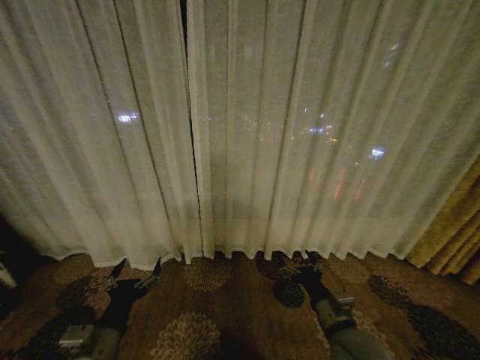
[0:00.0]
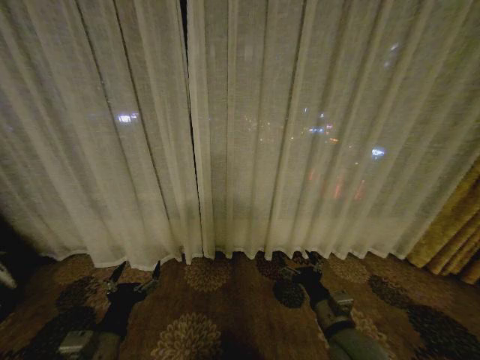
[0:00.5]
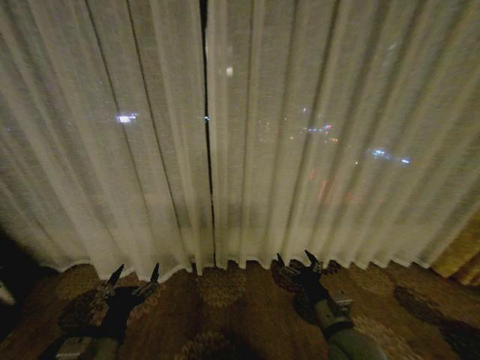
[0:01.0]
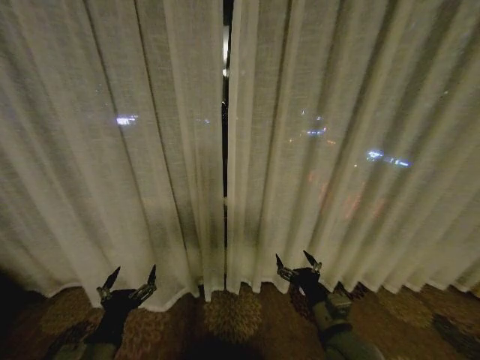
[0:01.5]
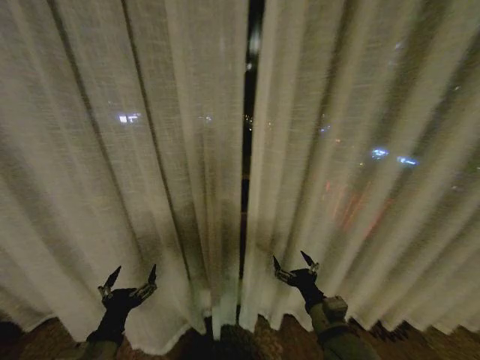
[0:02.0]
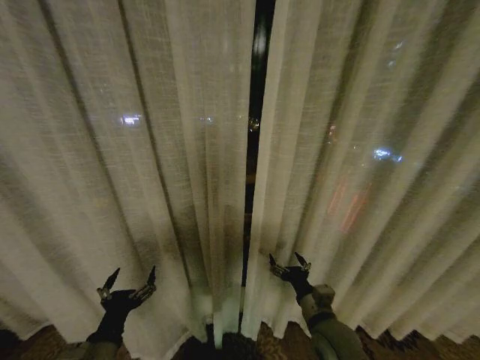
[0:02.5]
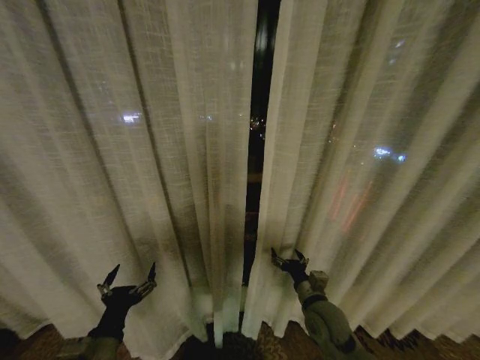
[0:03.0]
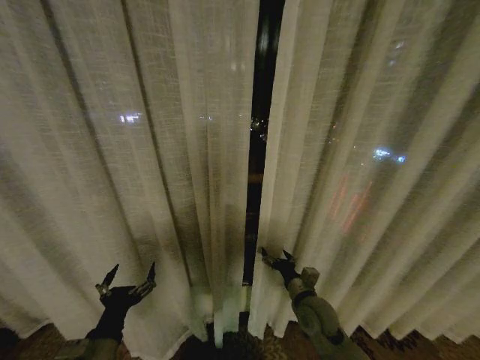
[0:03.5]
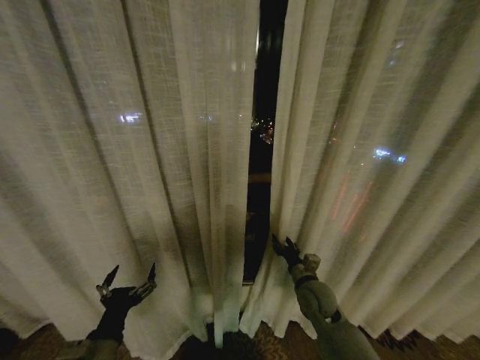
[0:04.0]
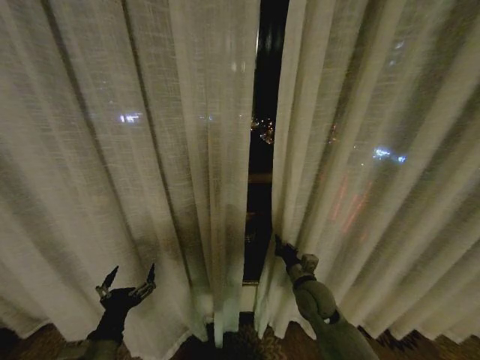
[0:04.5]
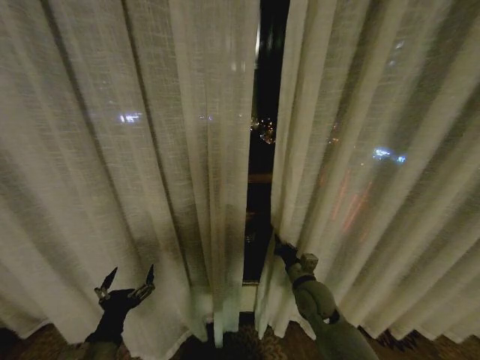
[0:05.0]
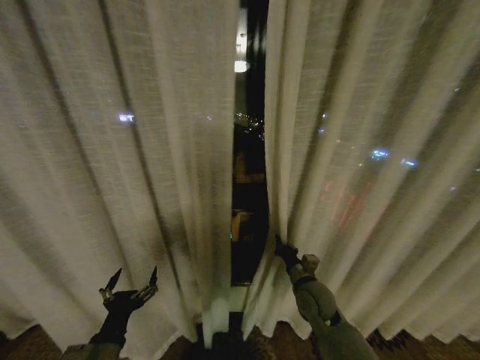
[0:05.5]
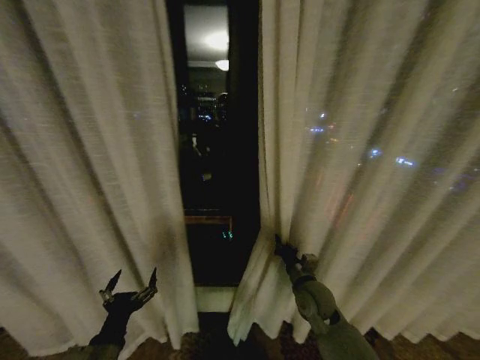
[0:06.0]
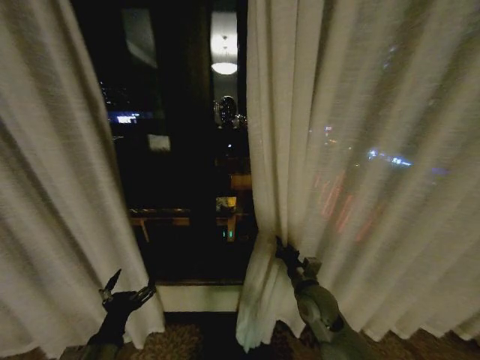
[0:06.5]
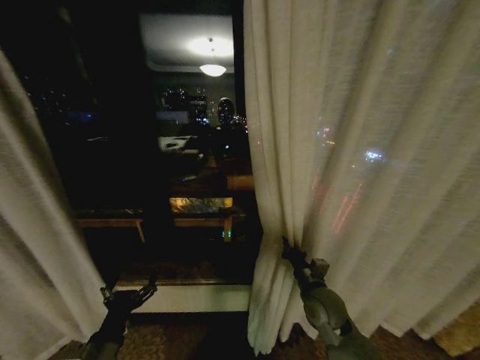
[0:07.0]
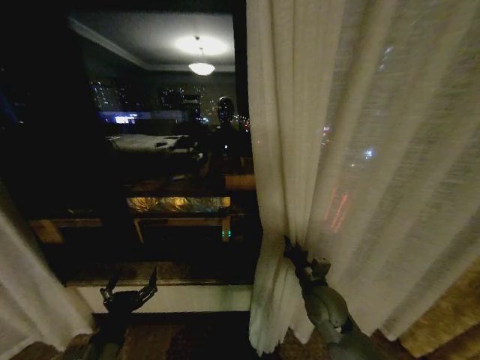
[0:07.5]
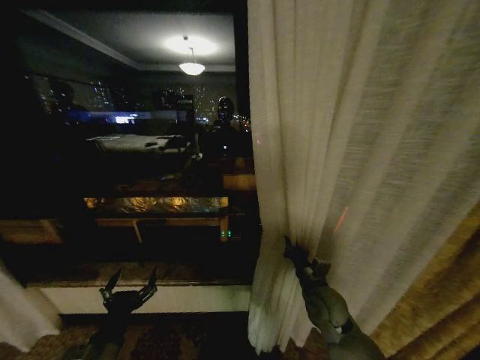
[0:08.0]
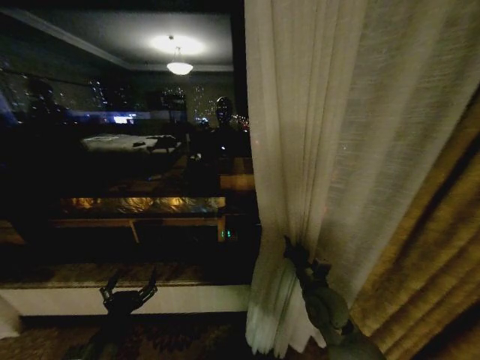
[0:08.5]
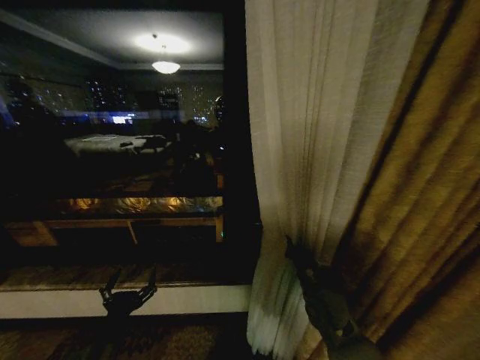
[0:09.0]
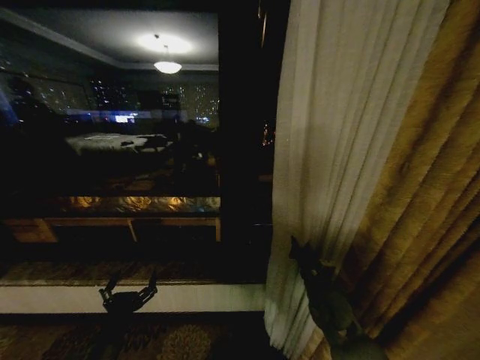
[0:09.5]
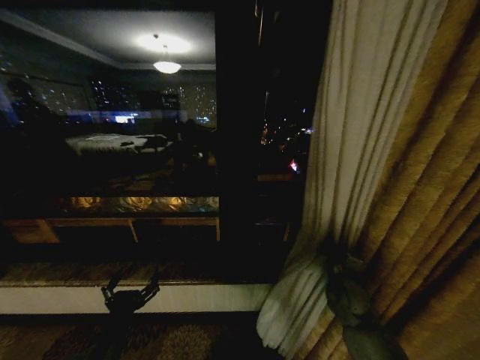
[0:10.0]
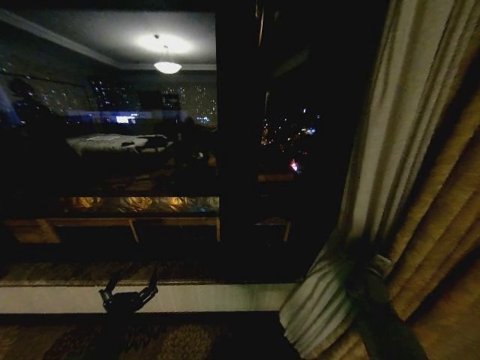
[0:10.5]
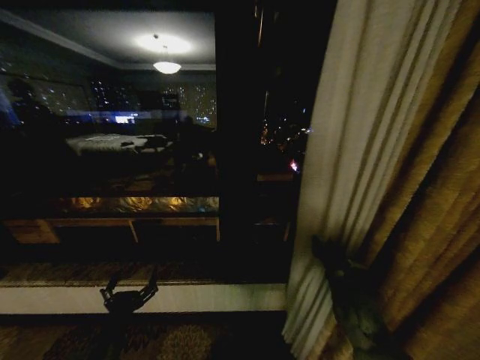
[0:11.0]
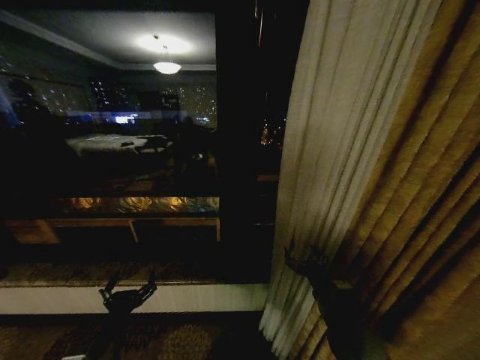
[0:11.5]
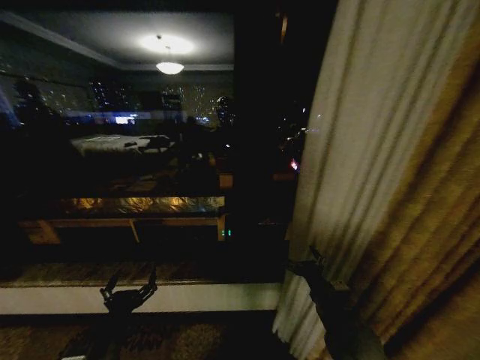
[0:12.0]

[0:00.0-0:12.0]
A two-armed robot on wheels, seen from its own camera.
Task of the whole recording: Open the curtains by pulling them apart, changing their state from closed to fully open.
0:02.0 to 0:04.0: The right gripper is displaced forward by roughly 15 cm, and closes its fingers.
0:04.0 to 0:06.0: The right gripper closes its fingers.
0:08.0 to 0:10.0: The right gripper goes some 5 cm to the right.
0:10.0 to 0:12.0: The right gripper heads backward and to the left, covering approximately 15 cm, and opens.

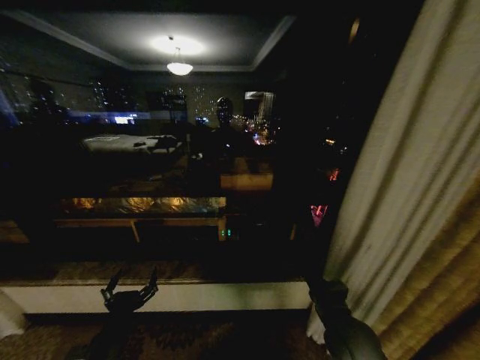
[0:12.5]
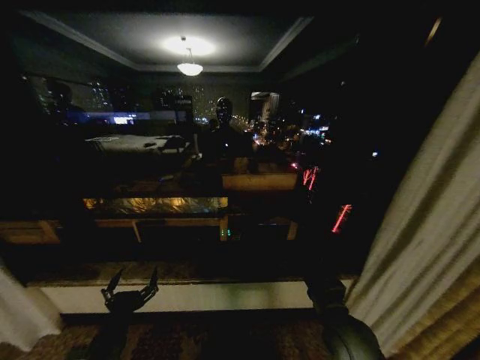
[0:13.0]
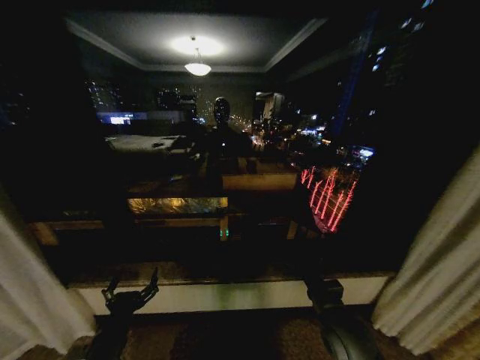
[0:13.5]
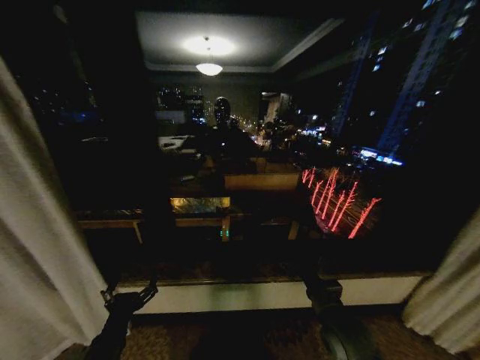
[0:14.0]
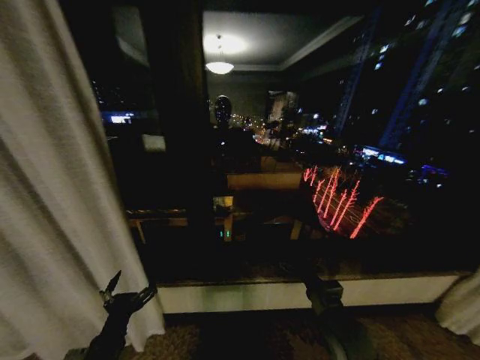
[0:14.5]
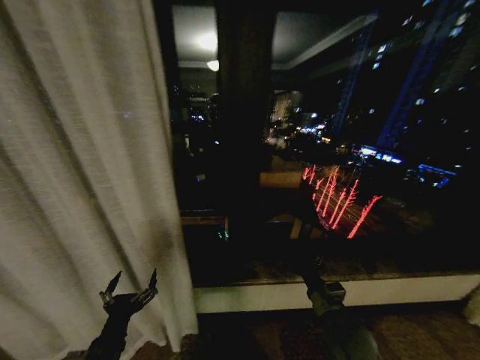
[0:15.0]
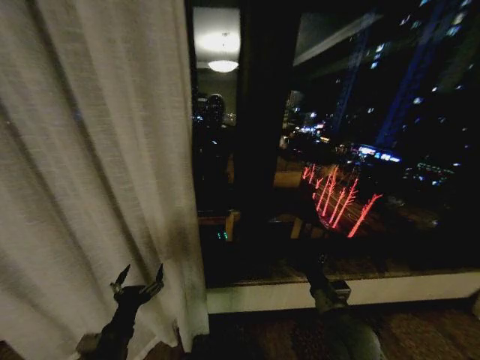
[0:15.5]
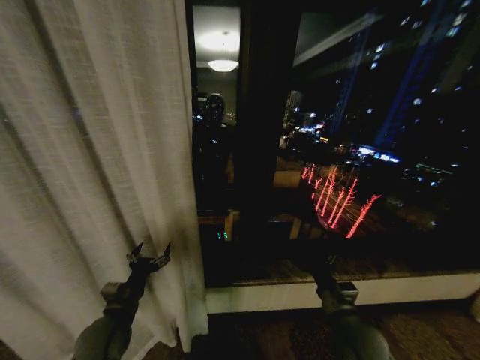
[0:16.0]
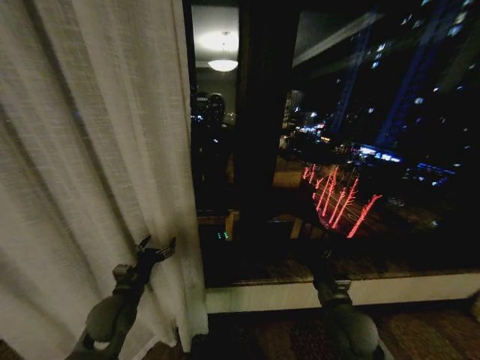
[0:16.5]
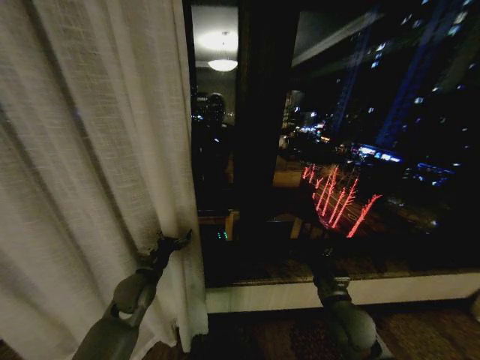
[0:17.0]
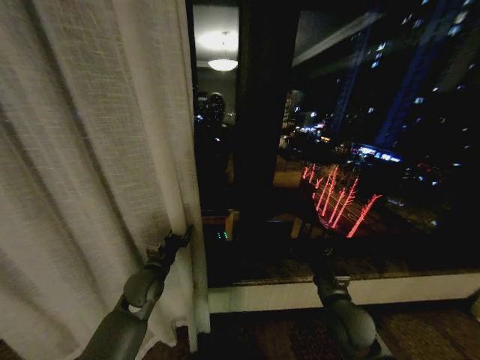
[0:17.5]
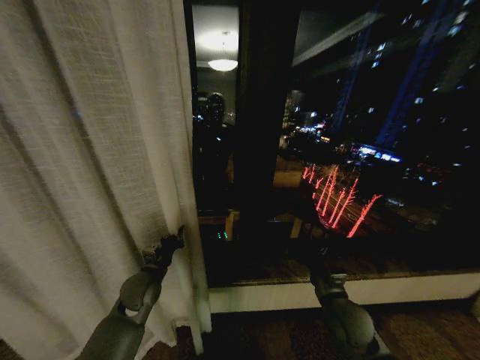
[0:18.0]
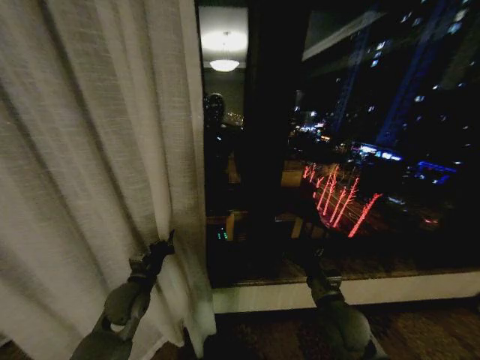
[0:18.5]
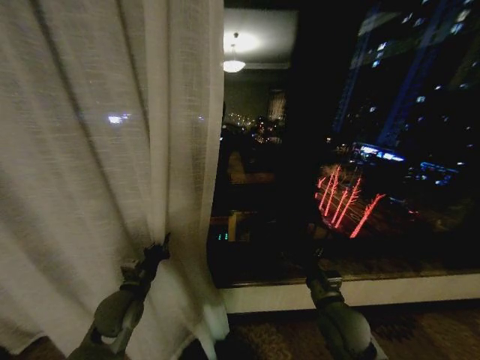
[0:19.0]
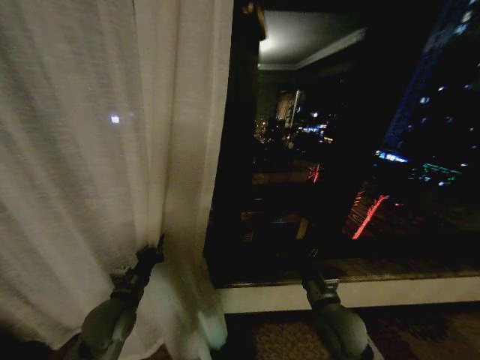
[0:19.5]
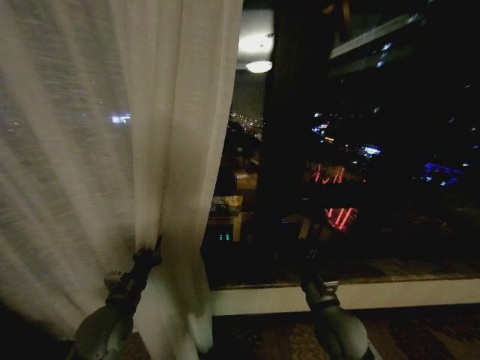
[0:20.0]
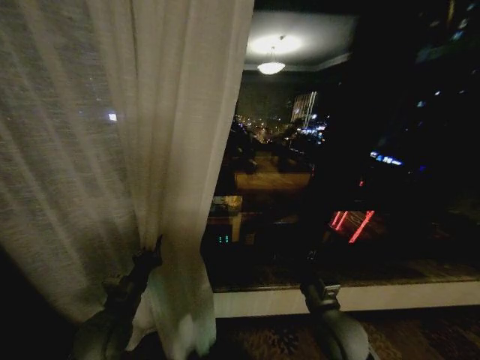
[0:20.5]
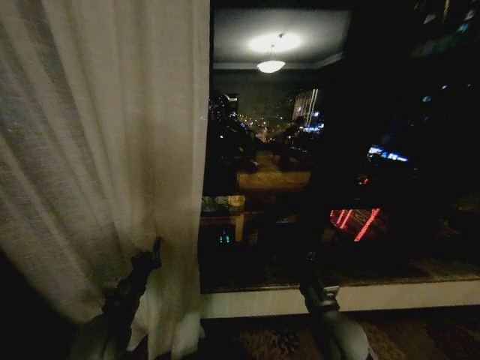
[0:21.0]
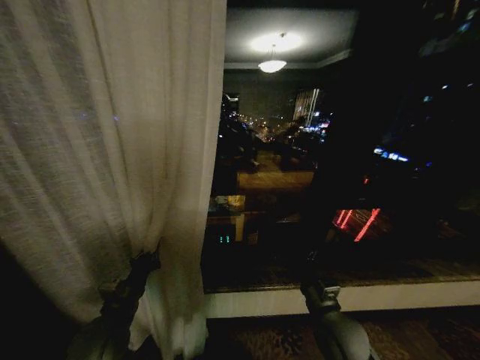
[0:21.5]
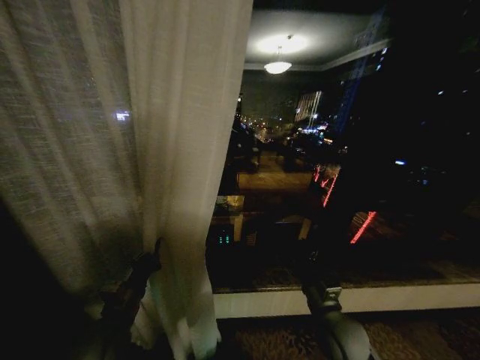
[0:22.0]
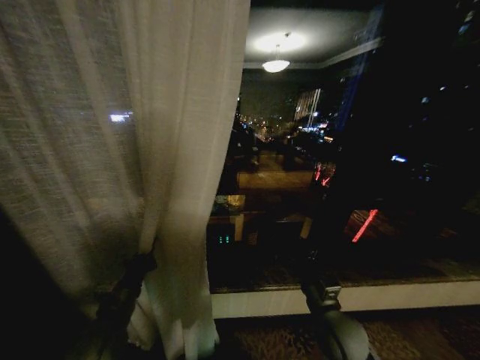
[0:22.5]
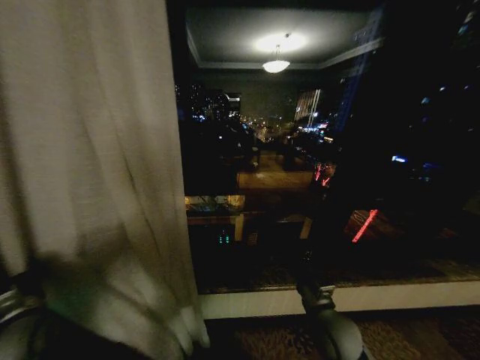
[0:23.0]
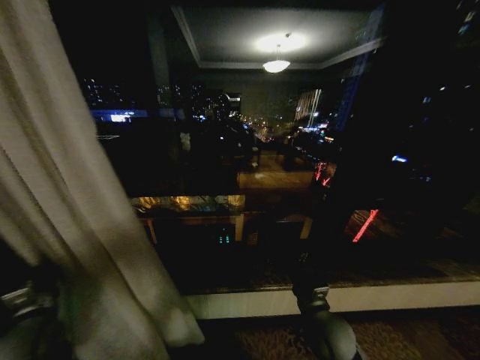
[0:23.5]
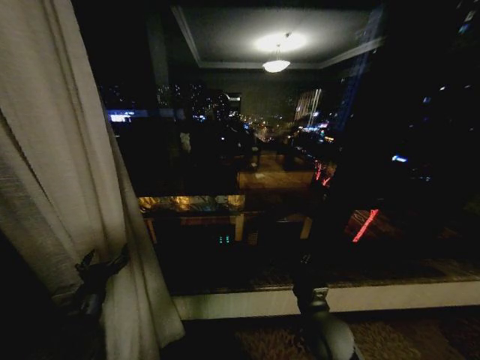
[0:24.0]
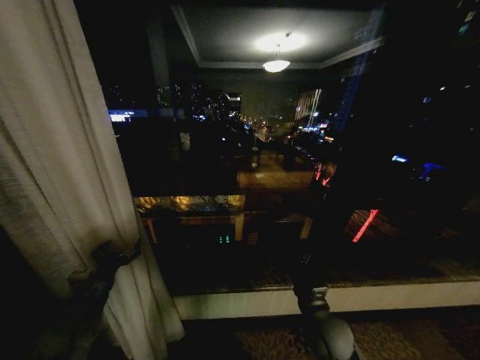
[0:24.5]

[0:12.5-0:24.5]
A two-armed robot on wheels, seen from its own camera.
Task of the whole recording: Open the curtains by pulling them apart, changing their state from closed to fully open.
0:14.5 to 0:16.5: The left gripper goes some 15 cm forward.
0:16.5 to 0:18.5: The left gripper closes up.
0:18.5 to 0:20.5: The left gripper travels backward by roughly 5 cm.
0:20.5 to 0:22.5: The grippers make only small movements.
0:22.5 to 0:24.5: The left gripper heads to the left, covering about 5 cm, and opens up.

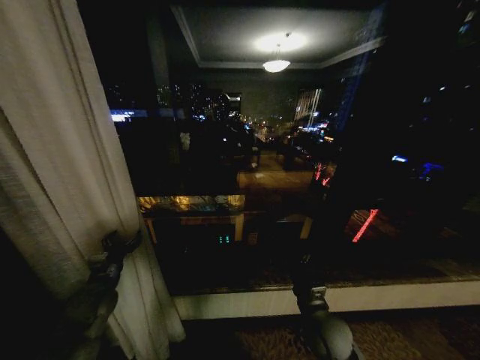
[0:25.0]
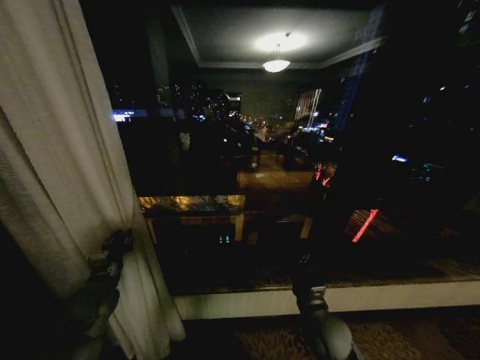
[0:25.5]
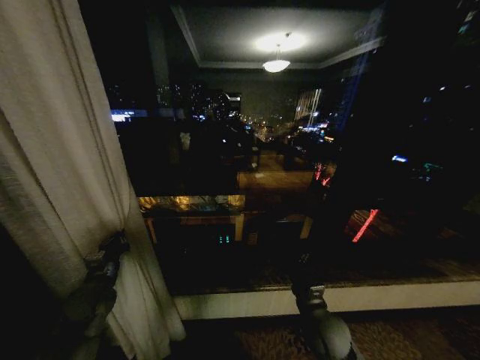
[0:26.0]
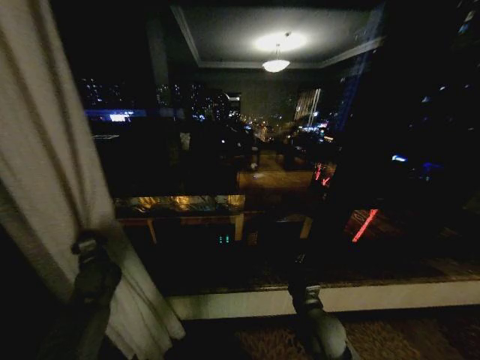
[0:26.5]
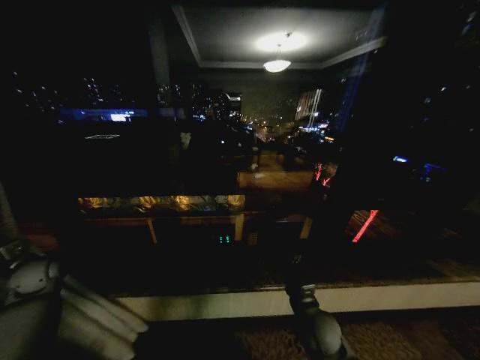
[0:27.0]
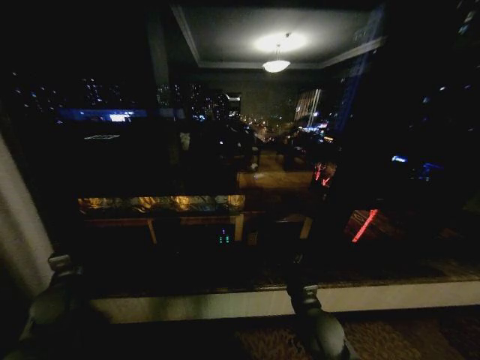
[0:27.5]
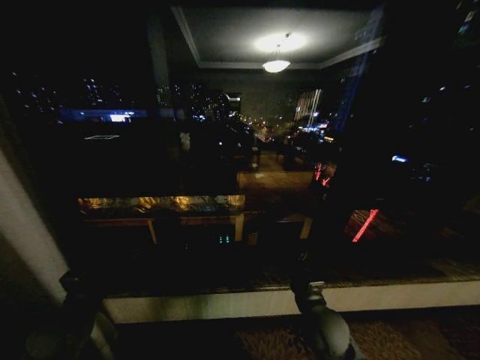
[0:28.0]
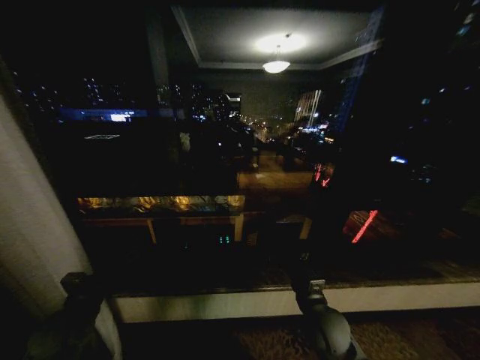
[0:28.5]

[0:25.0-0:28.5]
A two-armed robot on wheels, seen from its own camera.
Task of the whole recording: Open the curtains by pulling them apart, changing their state from closed to fully open.
0:25.0 to 0:27.0: The left gripper goes approximately 15 cm to the left, and closes its fingers.
0:27.0 to 0:28.5: The left gripper goes approximately 20 cm to the right and backward, and opens its fingers.
